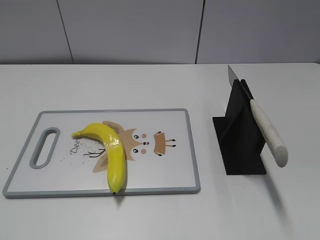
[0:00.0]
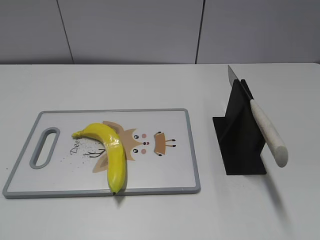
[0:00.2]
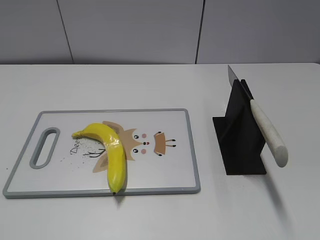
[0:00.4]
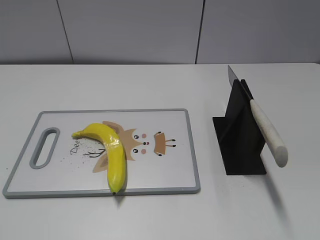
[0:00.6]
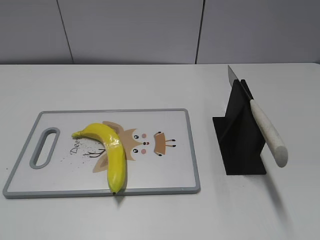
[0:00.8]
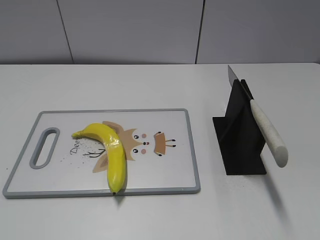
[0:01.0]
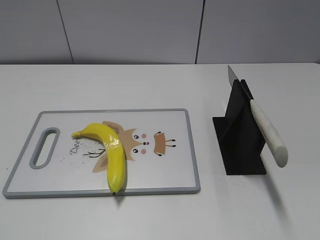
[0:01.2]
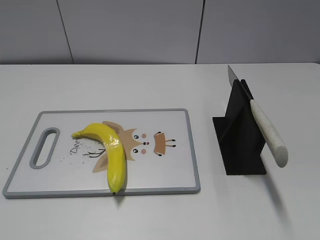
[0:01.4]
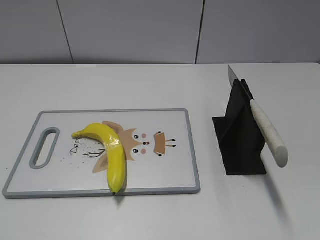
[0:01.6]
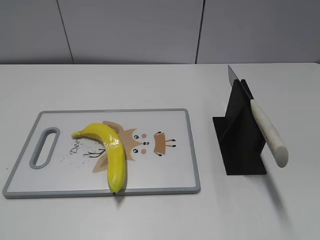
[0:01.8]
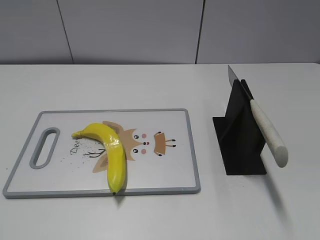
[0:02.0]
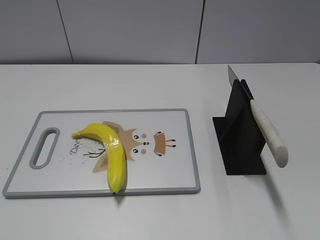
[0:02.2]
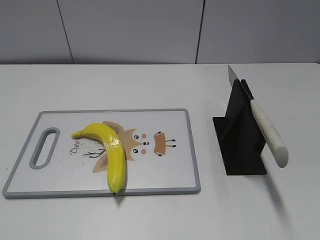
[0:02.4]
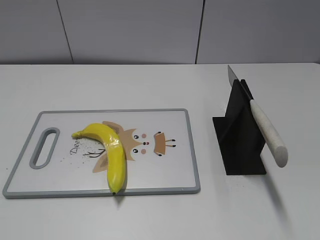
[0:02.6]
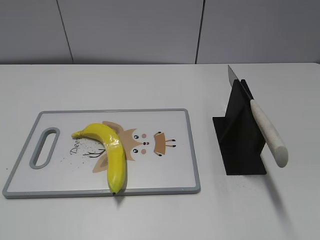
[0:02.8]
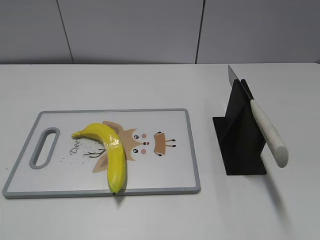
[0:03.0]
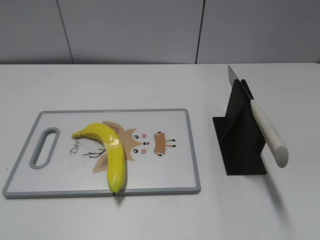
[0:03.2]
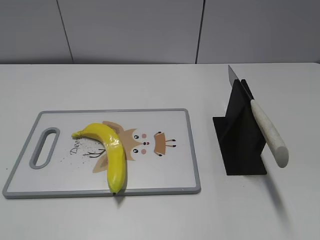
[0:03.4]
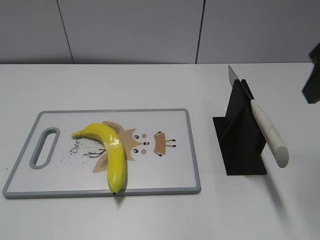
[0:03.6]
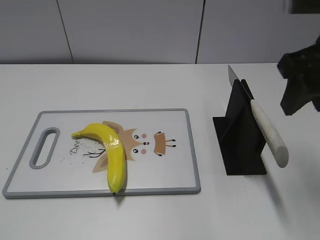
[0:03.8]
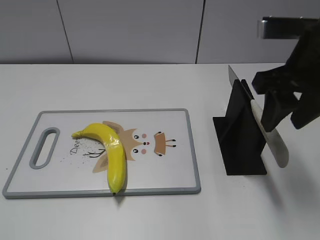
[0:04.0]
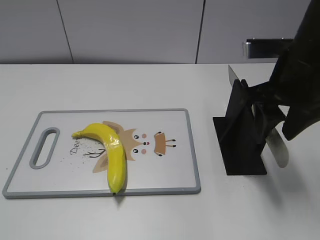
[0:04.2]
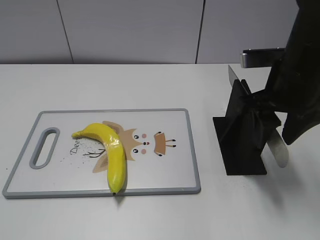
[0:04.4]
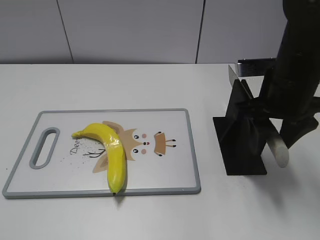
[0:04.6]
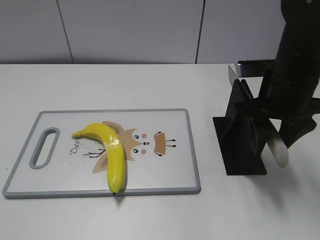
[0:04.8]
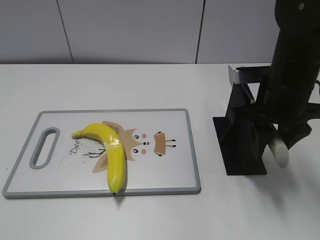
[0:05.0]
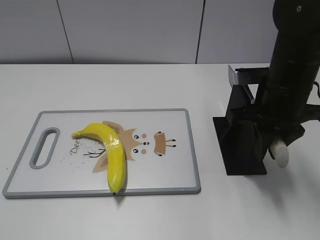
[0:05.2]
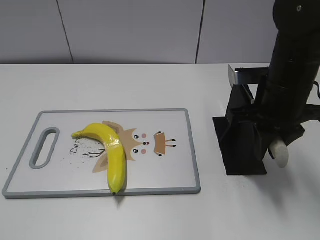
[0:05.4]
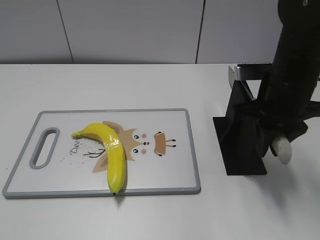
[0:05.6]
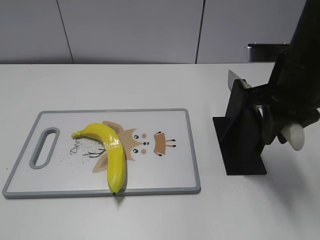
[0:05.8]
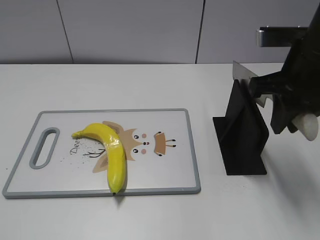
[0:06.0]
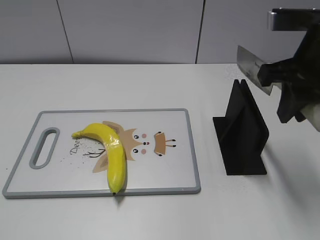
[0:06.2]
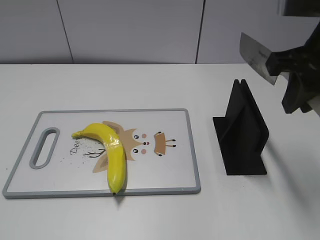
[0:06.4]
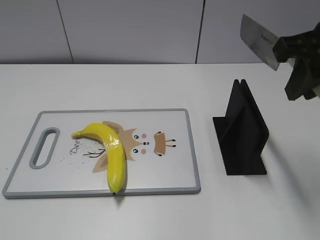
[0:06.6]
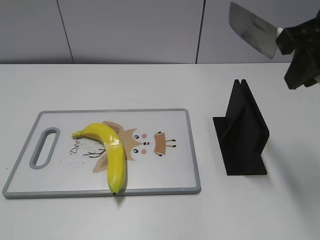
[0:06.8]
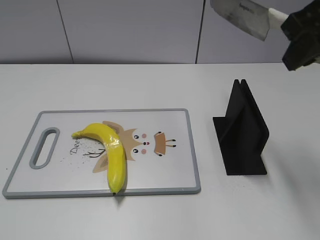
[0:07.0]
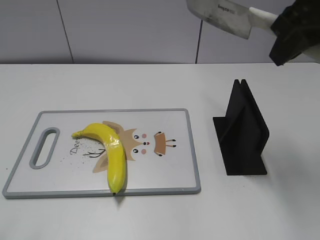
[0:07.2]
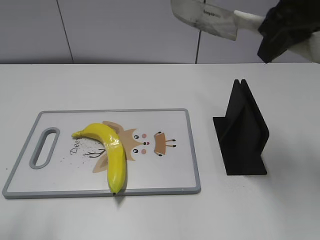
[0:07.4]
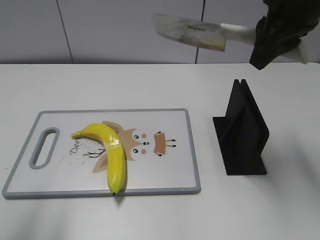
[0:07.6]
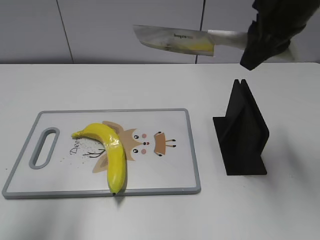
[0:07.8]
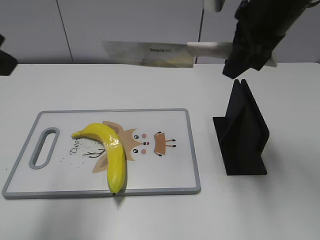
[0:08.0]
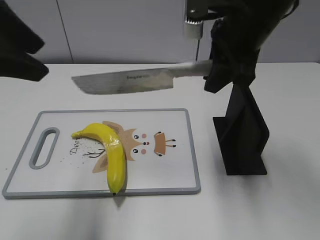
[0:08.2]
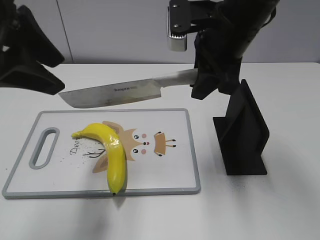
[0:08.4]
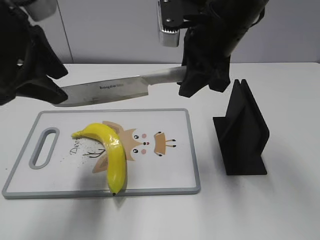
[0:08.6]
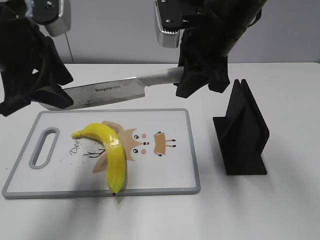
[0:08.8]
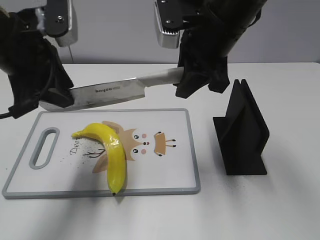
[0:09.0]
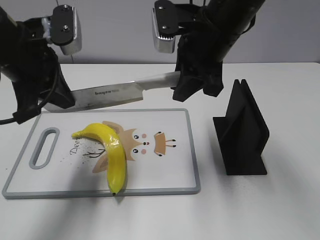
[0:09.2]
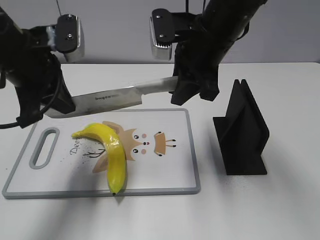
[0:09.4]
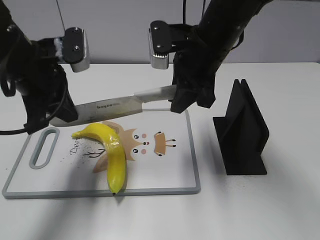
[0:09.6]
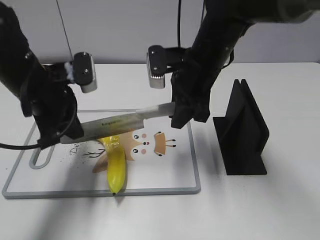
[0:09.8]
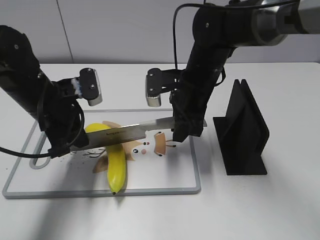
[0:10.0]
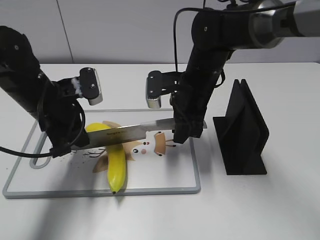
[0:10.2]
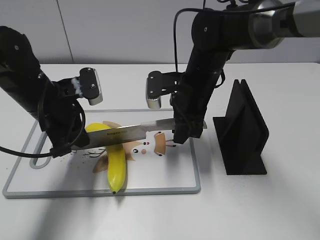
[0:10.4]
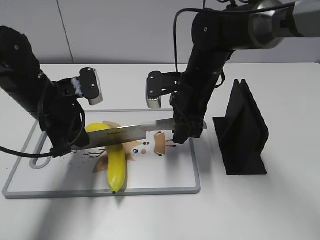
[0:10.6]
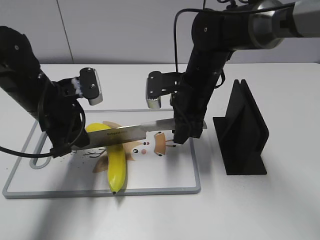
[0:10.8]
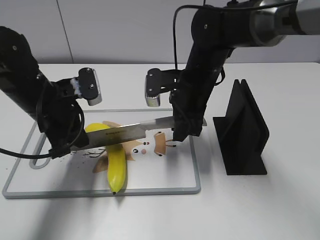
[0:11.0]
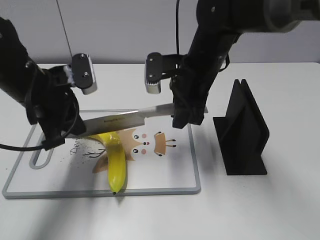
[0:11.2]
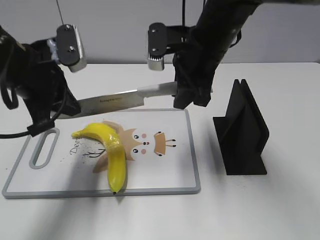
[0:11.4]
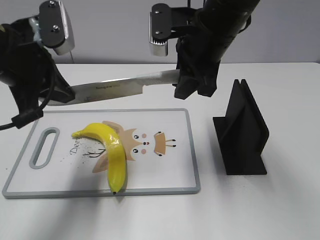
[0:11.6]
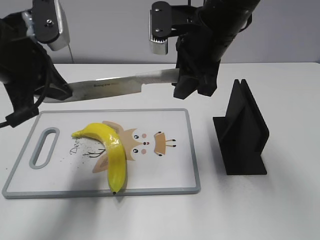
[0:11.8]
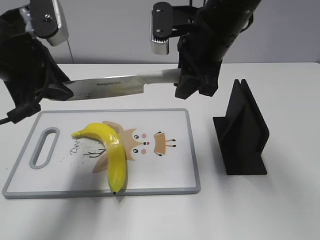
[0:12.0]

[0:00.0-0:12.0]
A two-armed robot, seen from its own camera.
Task of the whole recording: cut plastic banana.
Step, 0:00.0 to 0:06.4: Grab the knife handle with your right hand.
Step, 0:06.8 to 0:11.2: Lift the knife with your right hand.
0:03.0 to 0:04.4: The right gripper is displaced forward, to the left and downward by about 25 cm.
0:04.4 to 0:06.0: The right gripper closes its fingers.
0:06.0 to 0:07.6: The left gripper shifts about 15 cm forward and upward, while the right gripper is displaced upward by about 5 cm.
0:07.6 to 0:09.0: The left gripper moves forward, to the right and downward, about 20 cm. The right gripper goes some 10 cm to the left and downward.
0:09.0 to 0:10.4: Both grippers move downward, some 15 cm. The left gripper closes up.
0:10.4 to 0:12.0: Both grippers travel together upward, approximately 10 cm. The left gripper opens.

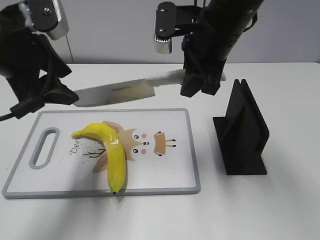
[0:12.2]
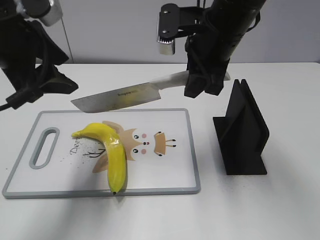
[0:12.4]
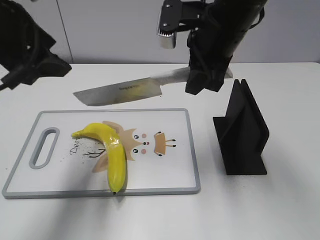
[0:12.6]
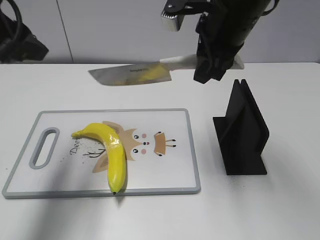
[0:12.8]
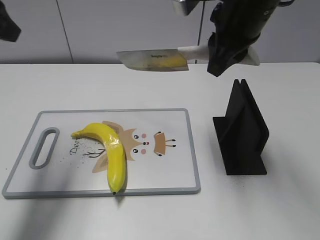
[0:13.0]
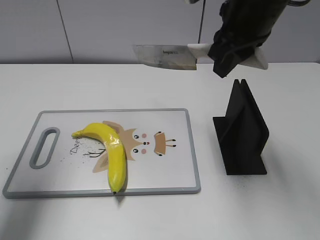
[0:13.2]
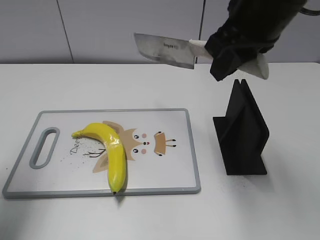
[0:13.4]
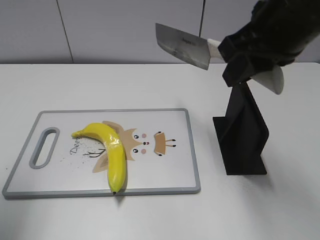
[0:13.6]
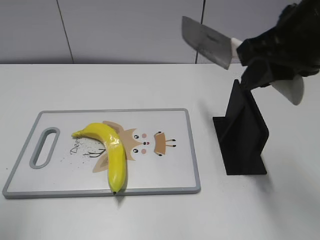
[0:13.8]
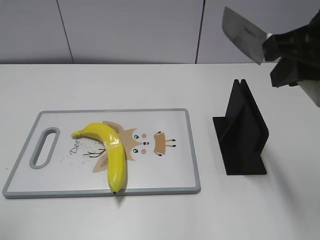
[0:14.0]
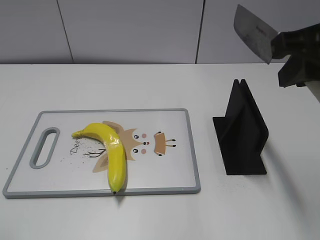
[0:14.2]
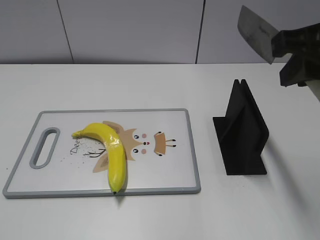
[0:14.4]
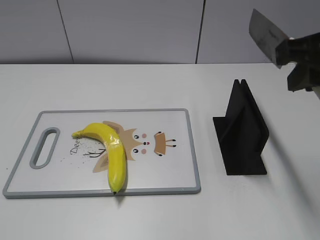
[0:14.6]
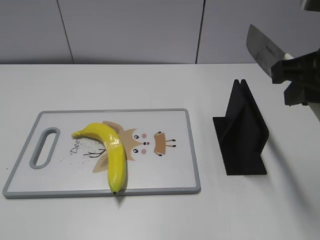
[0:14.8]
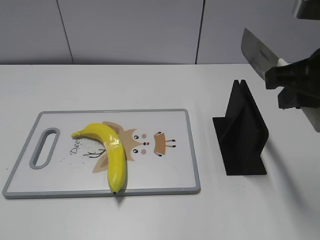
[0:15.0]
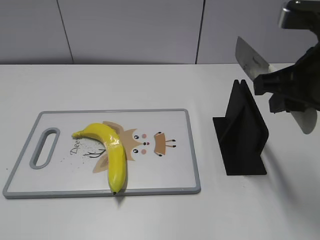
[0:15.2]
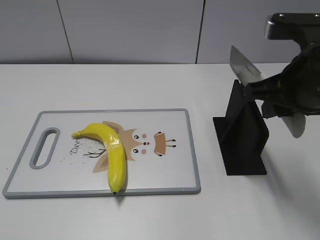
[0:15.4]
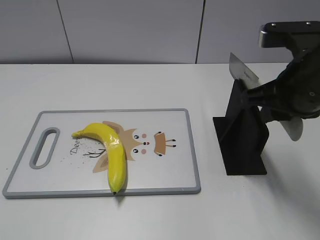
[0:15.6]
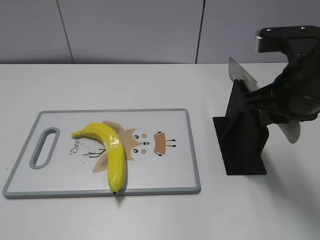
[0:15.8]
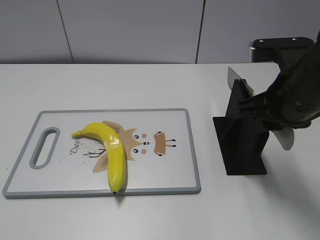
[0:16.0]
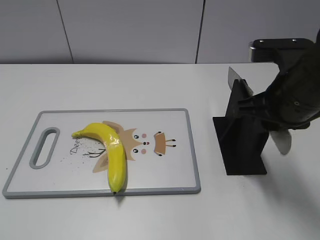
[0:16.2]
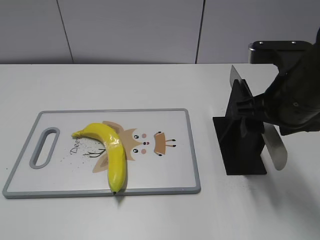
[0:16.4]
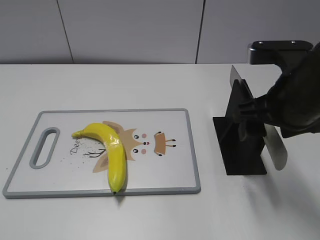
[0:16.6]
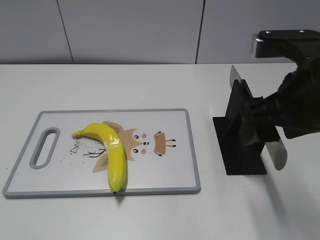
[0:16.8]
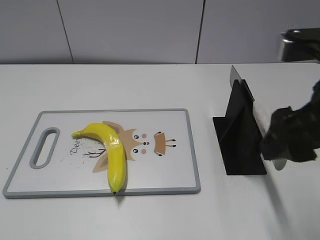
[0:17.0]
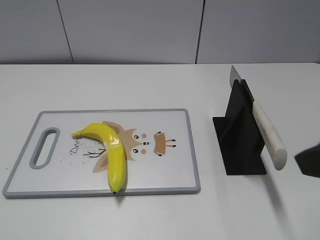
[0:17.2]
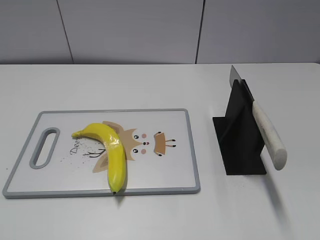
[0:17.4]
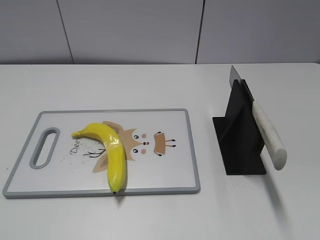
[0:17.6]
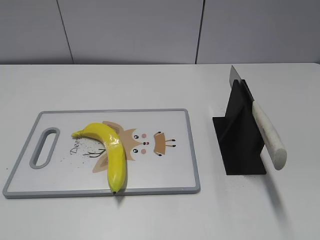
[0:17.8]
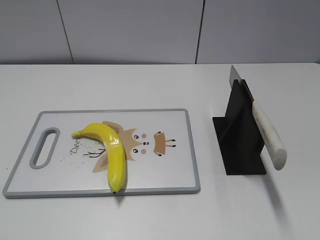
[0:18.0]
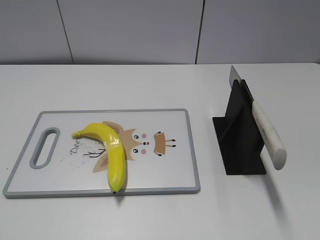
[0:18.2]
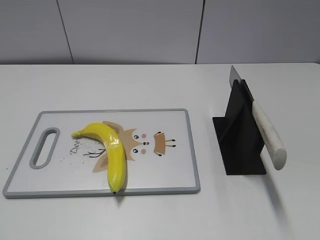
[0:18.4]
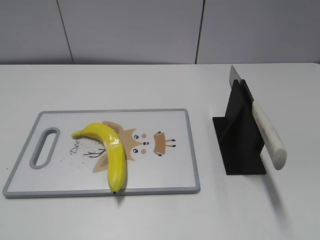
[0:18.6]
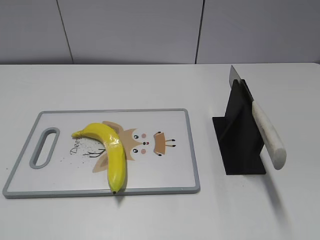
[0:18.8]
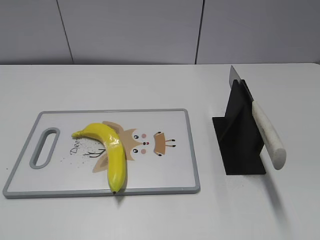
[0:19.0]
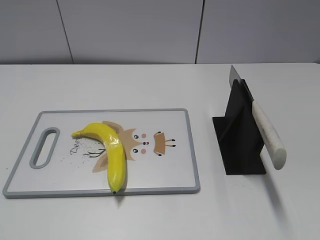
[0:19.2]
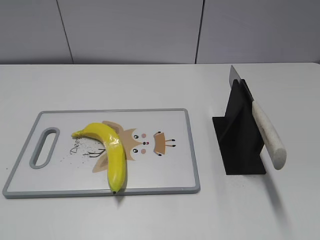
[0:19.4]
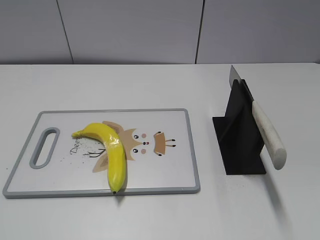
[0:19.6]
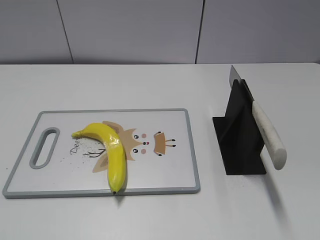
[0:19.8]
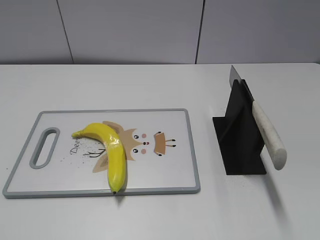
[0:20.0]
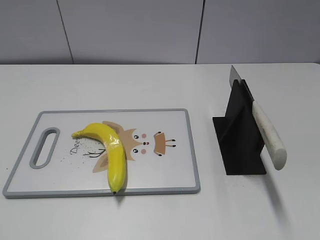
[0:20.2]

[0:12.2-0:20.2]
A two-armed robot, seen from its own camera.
Task of the whole recording: cut plastic banana.
Step, 0:13.0 to 0:15.0: Lift the knife with your right hand.
Step, 0:15.2 to 0:20.2: Place the knife on the storage rack with your right hand.
0:12.2 to 0:13.8: The left gripper goes approximately 15 cm to the left and backward, while the right gripper moves backward, to the right and upward, about 15 cm.
0:13.8 to 0:15.4: The left gripper is displaced backward by roughly 15 cm; the right gripper goes some 5 cm downward.
0:15.4 to 0:17.0: The right gripper travels backward by about 5 cm, and opens its fingers.
0:17.0 to 0:18.6: The right gripper shifts approximately 20 cm backward and to the right.

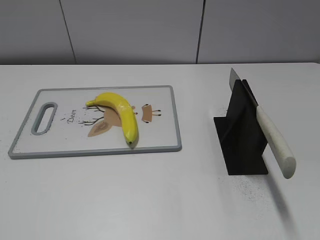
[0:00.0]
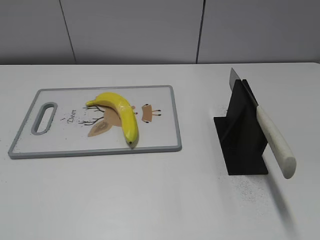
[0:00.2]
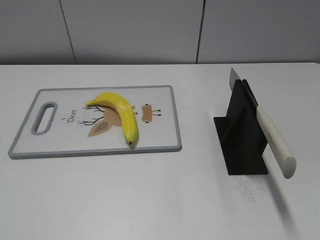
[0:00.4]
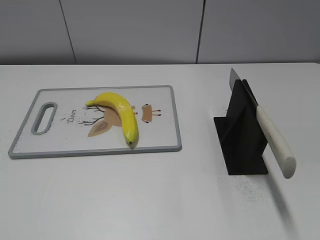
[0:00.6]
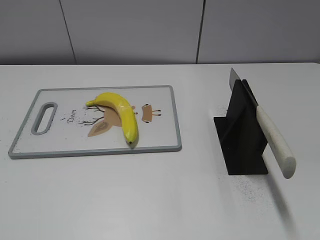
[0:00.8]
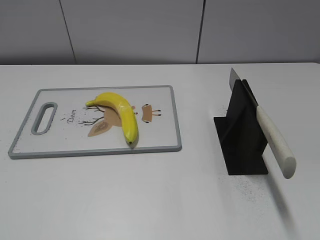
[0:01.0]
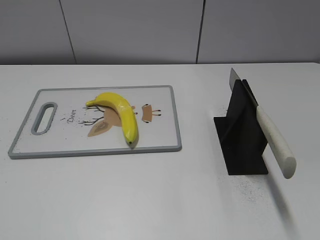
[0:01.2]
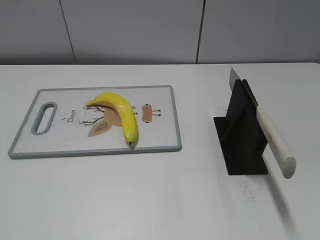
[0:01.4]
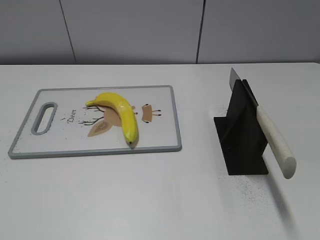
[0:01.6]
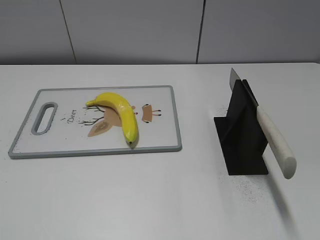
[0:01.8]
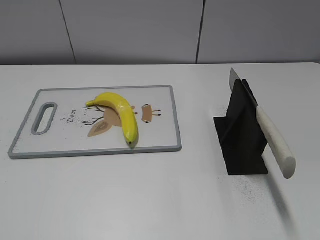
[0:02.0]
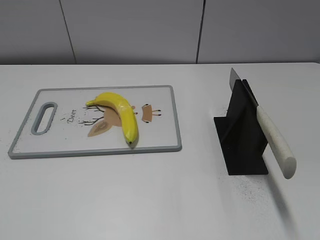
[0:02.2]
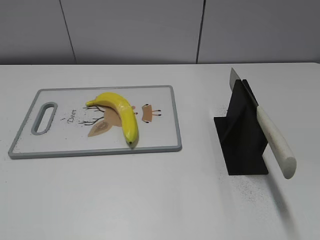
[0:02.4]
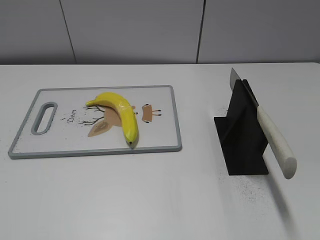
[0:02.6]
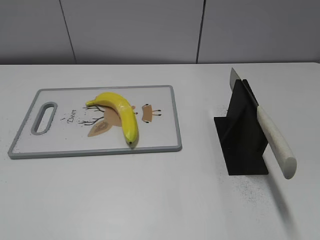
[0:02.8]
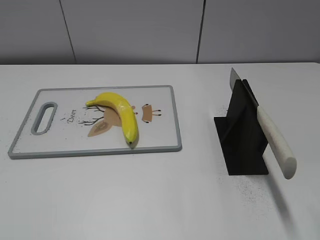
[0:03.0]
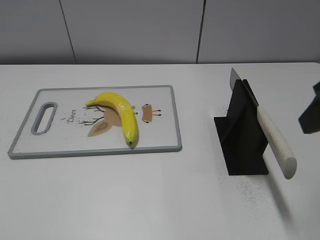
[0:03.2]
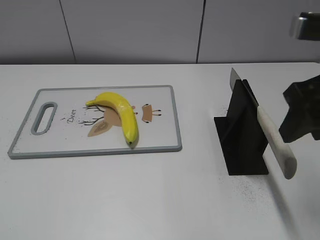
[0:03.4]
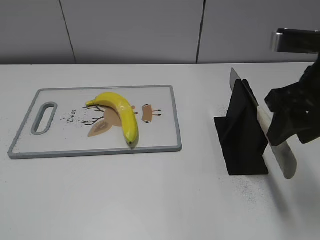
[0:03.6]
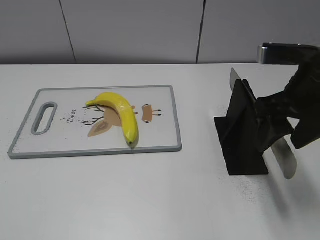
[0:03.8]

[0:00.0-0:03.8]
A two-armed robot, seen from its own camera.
Task of the whole recording: cut plastic banana.
0:02.6 to 0:03.8: The right gripper is displaced forward, to the left and downward by roughly 20 cm.
